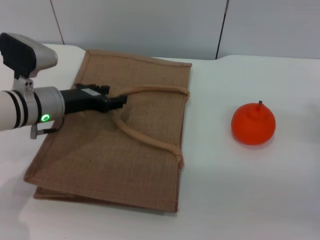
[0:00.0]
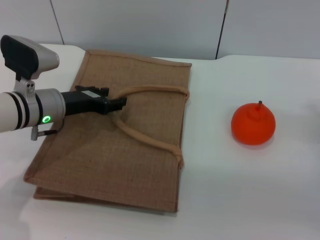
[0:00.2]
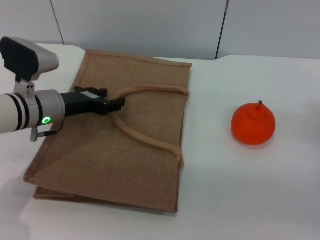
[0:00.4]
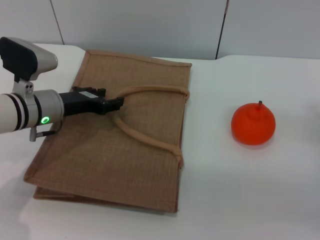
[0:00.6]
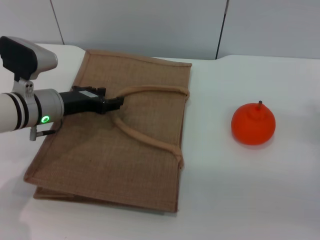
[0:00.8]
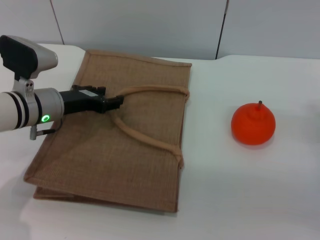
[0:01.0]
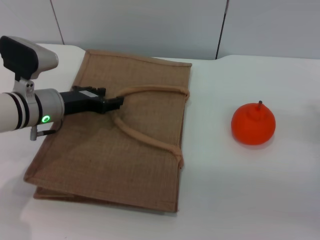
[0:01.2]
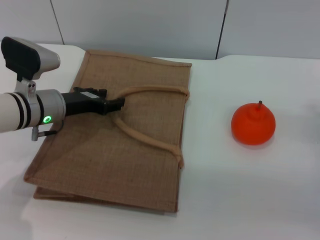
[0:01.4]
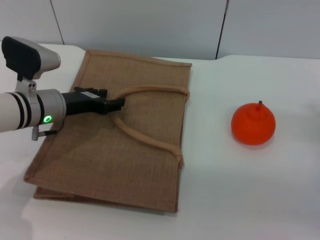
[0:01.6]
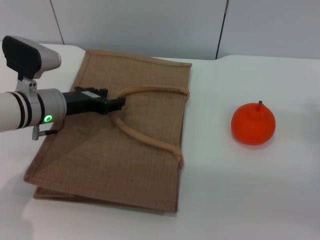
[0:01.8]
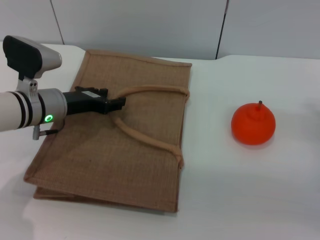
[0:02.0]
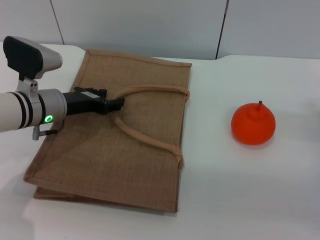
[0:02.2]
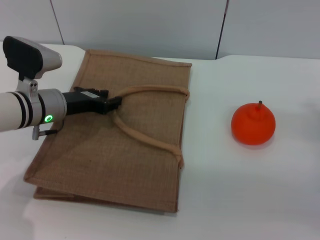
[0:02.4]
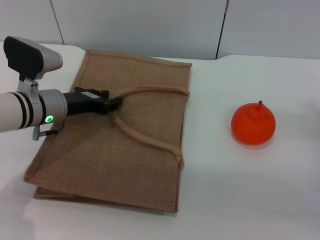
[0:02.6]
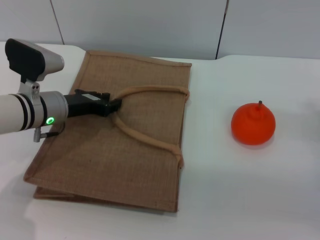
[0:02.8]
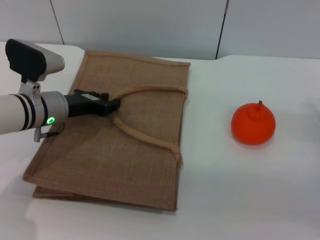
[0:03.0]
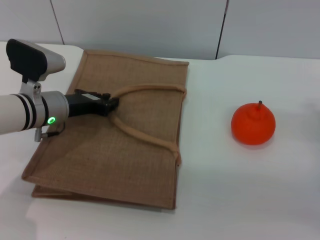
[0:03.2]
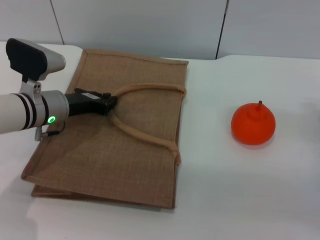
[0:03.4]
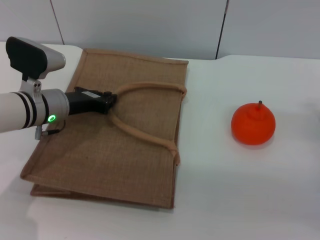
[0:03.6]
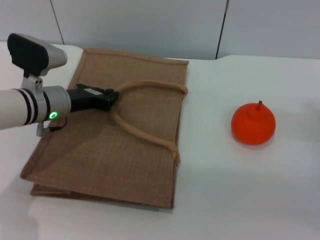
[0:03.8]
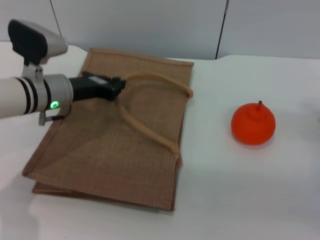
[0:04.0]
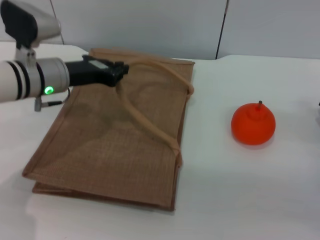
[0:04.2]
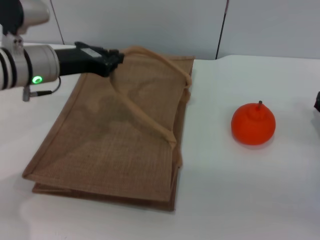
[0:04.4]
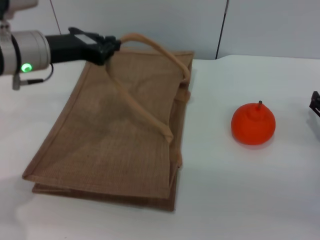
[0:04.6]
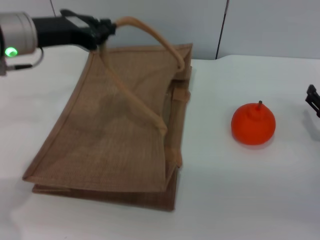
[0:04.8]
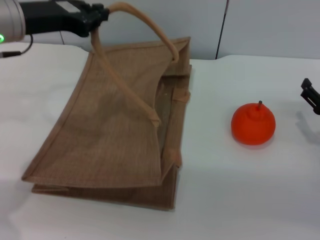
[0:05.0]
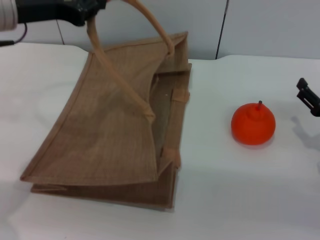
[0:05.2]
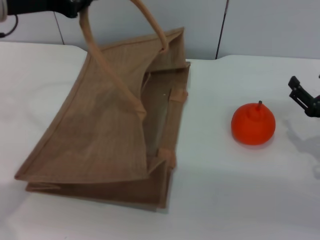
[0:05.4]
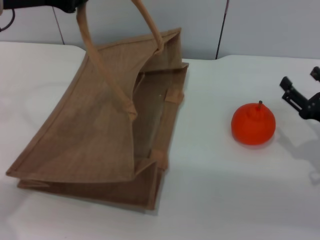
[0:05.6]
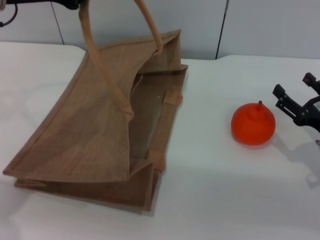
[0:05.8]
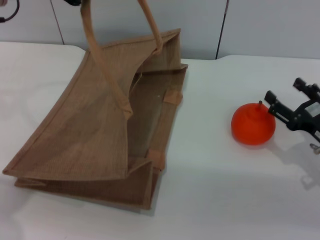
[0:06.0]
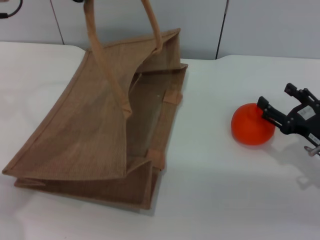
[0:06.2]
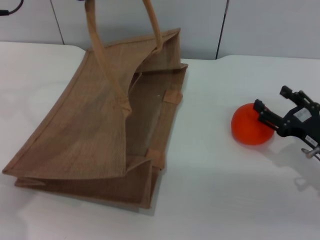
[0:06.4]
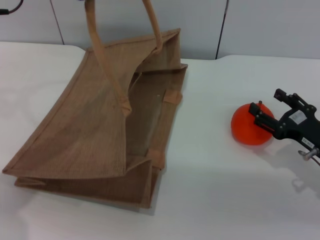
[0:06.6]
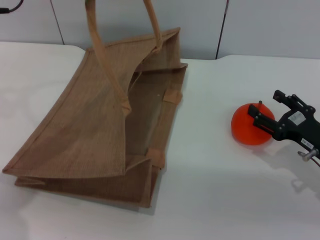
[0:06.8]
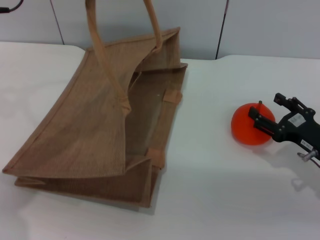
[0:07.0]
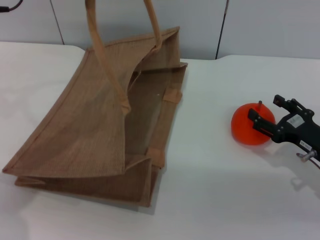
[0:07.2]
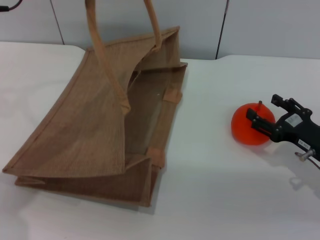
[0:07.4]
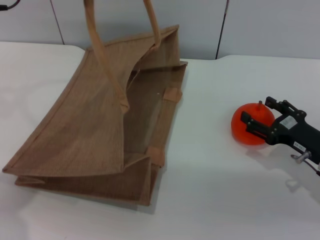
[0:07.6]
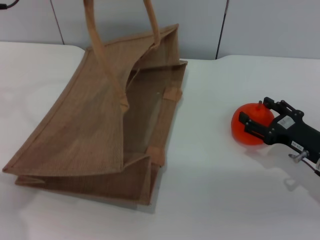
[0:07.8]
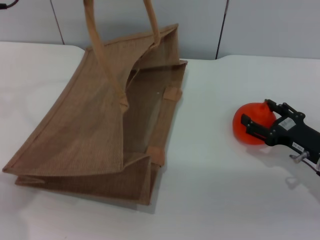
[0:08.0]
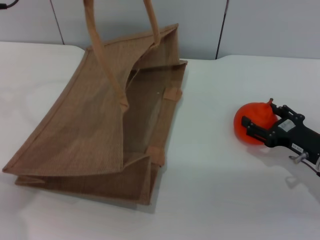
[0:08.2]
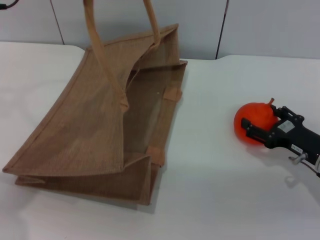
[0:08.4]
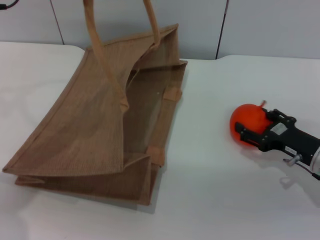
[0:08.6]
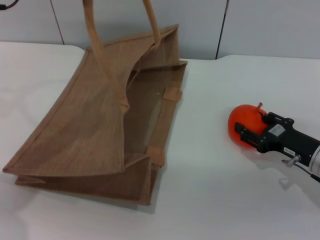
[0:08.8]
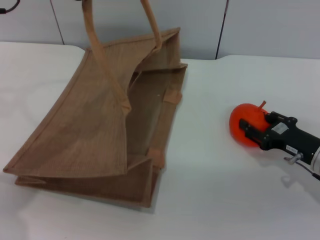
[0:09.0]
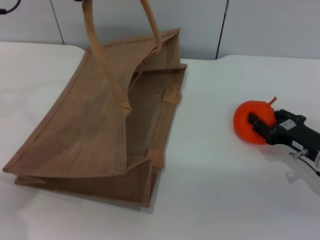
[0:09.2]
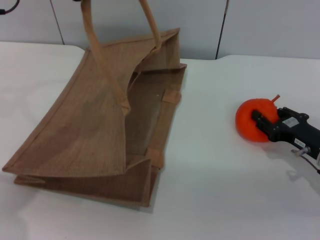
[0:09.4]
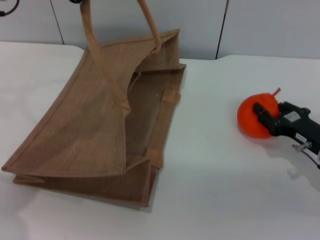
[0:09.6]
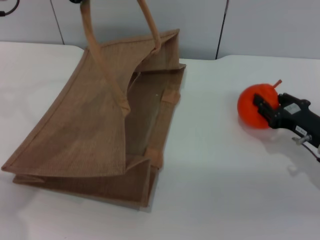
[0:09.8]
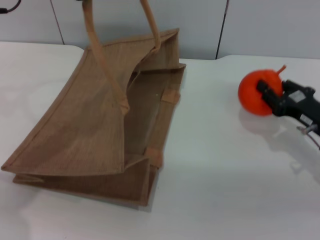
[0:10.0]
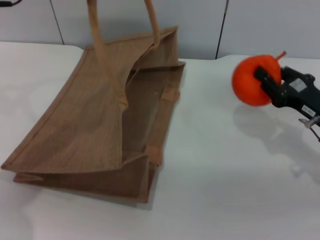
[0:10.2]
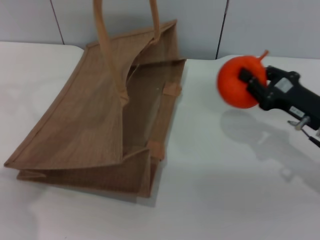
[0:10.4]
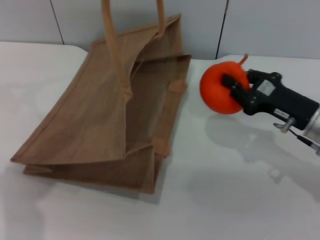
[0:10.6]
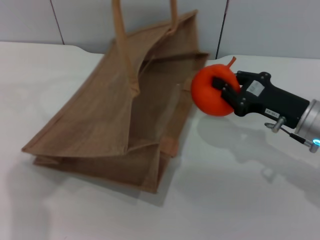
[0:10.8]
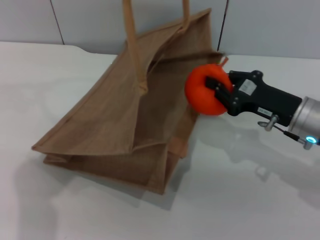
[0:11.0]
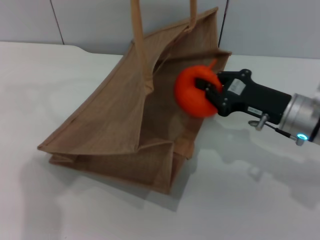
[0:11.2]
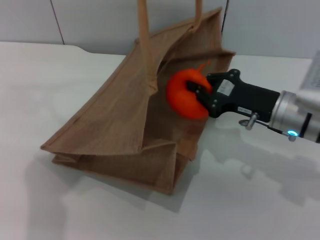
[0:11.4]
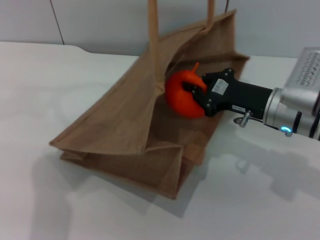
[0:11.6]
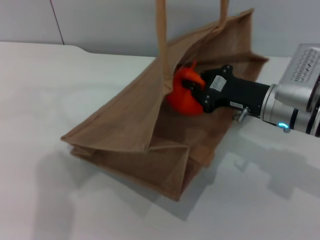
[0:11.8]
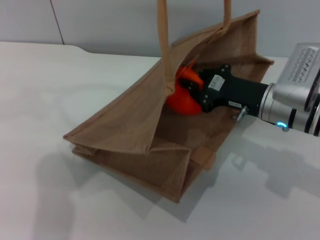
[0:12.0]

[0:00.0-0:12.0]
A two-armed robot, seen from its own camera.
Task of the whole recording: pick up the orange from the table and place it in the brown handbag.
Step, 0.0 to 5.0 s: Lift the woven bag with the left gripper to open it.
Step, 5.2 to 10.2 s: Pick up the orange with the right gripper.
0.0 to 1.6 s: The two grippers keep their place.
1.6 to 3.0 s: The two grippers keep their place.
3.0 to 4.4 s: The left gripper moves upward, approximately 10 cm, and closes up.
4.4 to 6.0 s: The left gripper travels upward by approximately 15 cm.
6.0 to 7.6 s: The grippers make only small movements.
7.6 to 9.0 s: The grippers move only a little.
9.0 to 10.4 s: The right gripper moves upward, roughly 5 cm, and closes.
10.4 to 12.0 s: The left gripper heads to the right, covering about 10 cm; the right gripper shifts approximately 10 cm to the left.

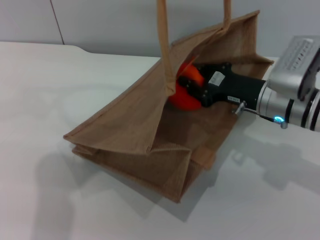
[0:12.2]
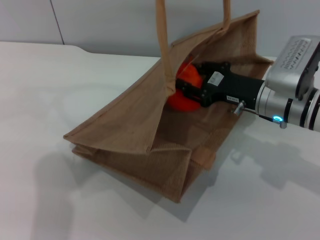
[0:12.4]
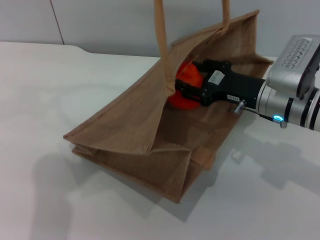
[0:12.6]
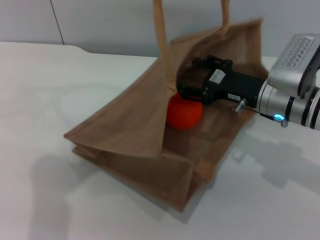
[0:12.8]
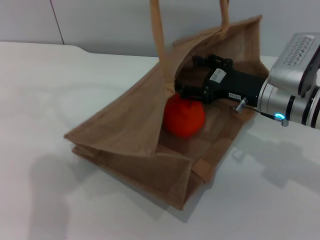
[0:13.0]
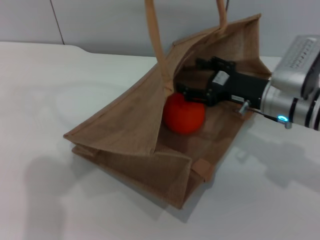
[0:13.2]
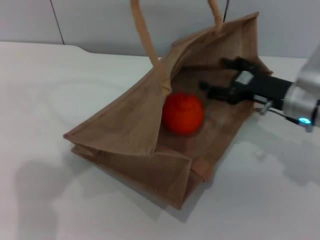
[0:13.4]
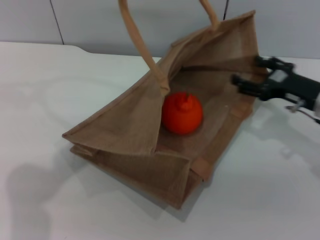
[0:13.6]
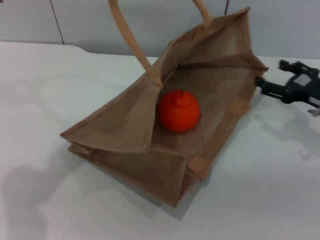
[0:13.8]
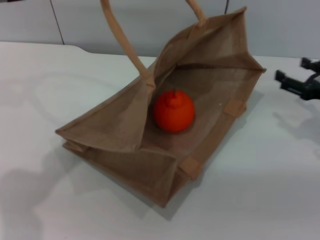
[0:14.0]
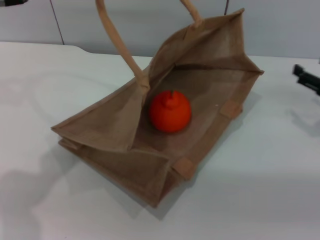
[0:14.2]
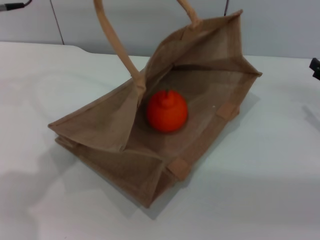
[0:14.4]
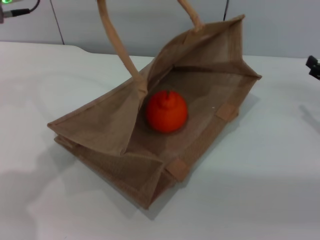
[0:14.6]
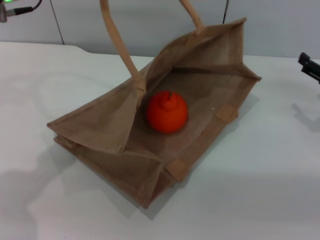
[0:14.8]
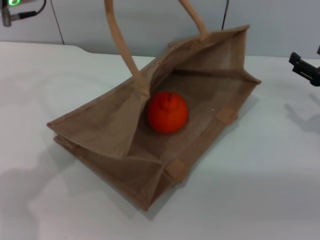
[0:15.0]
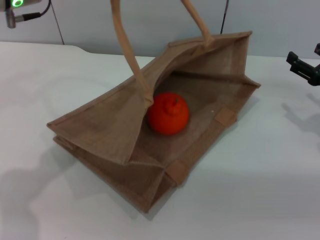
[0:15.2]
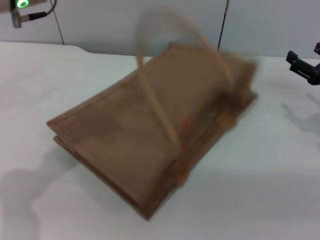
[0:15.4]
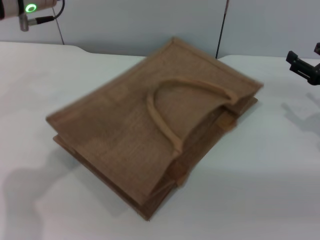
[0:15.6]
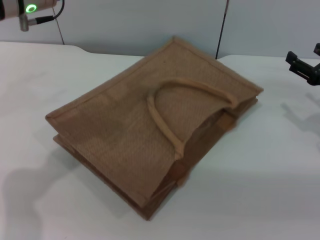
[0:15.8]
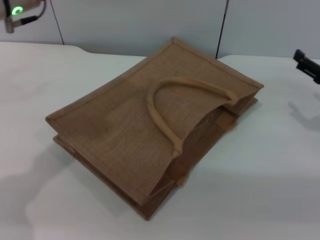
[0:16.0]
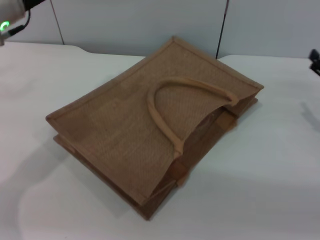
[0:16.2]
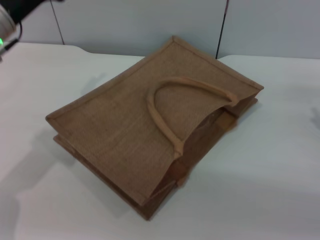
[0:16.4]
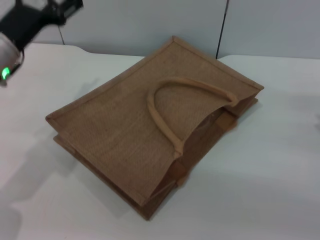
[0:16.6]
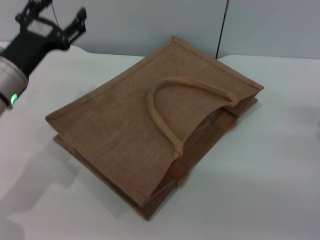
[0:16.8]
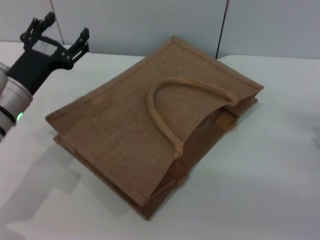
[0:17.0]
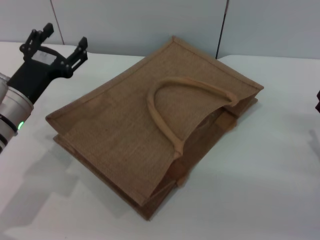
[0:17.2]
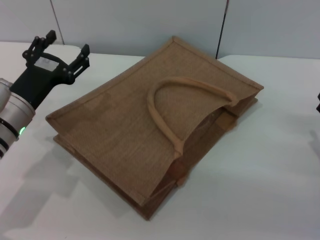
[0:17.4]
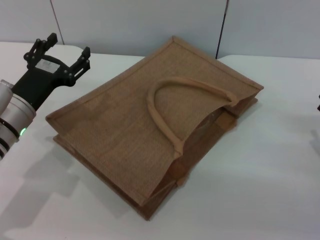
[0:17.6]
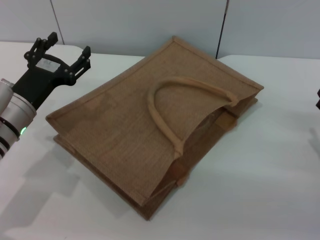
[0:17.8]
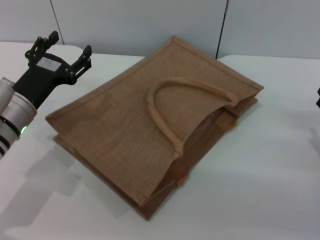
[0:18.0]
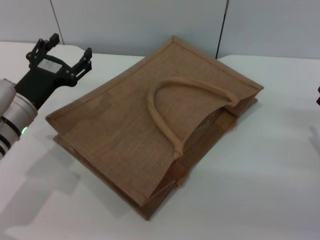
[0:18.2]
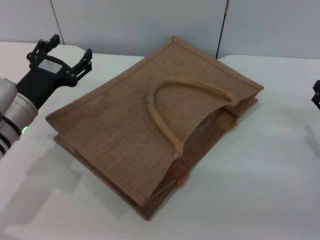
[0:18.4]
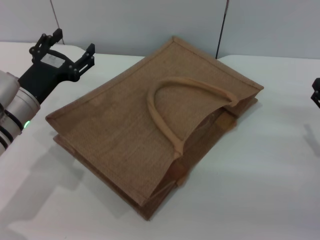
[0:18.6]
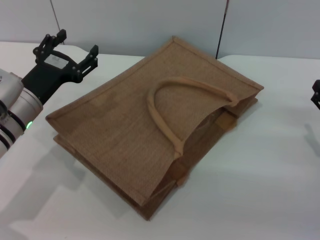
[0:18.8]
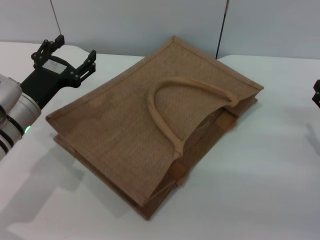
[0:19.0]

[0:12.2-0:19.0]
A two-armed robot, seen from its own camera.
Task of the whole recording: pick up the orange from the table and place it in the brown handbag.
Step, 13.8 to 15.6 s: Lower the woven bag with the left gripper to close it.
12.2 to 13.6 s: The left gripper changes place by approximately 5 cm. The right gripper travels to the right by roughly 10 cm, and opens up.
13.6 to 15.0 s: The left gripper moves roughly 5 cm, while the right gripper moves to the right, approximately 5 cm.
15.0 to 16.2 s: The left gripper moves about 5 cm, and opens.
16.2 to 17.6 s: The right gripper goes roughly 10 cm backward. Meanwhile the left gripper shifts approximately 15 cm downward and backward.
17.6 to 19.0 s: The grippers move only a little.

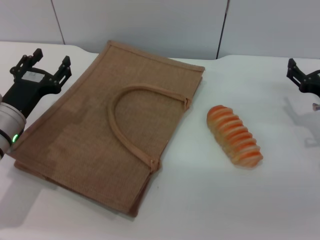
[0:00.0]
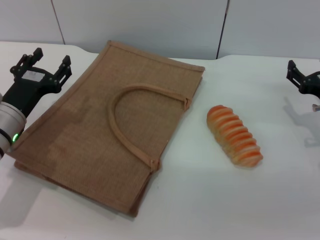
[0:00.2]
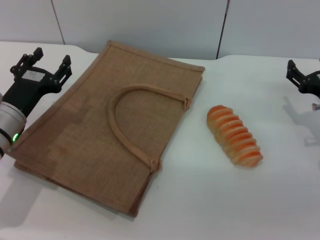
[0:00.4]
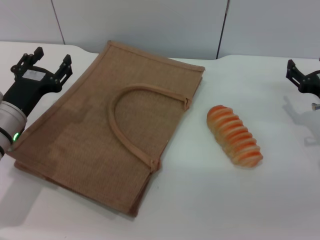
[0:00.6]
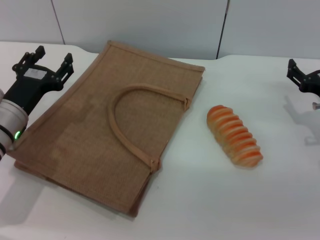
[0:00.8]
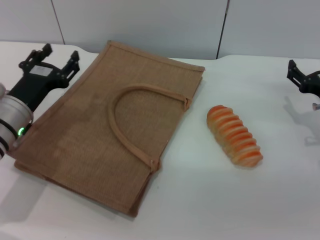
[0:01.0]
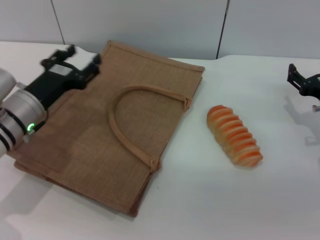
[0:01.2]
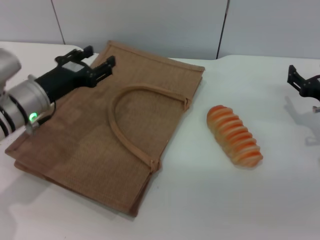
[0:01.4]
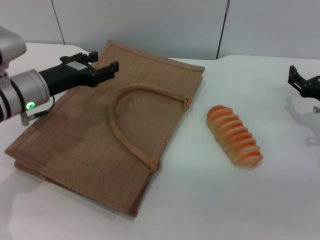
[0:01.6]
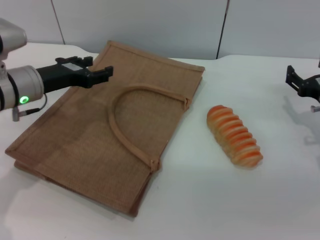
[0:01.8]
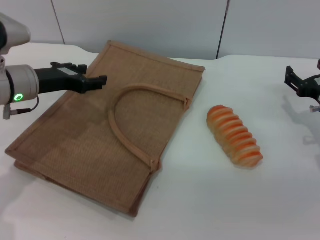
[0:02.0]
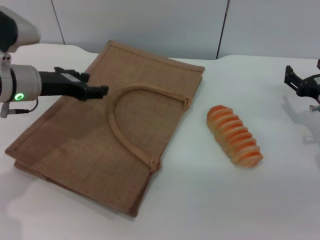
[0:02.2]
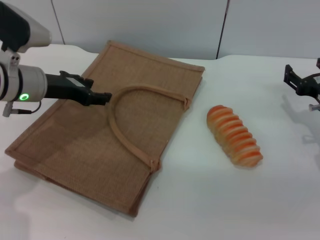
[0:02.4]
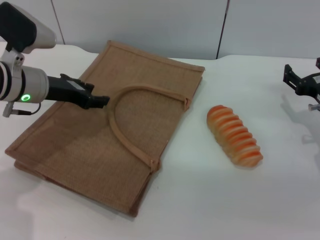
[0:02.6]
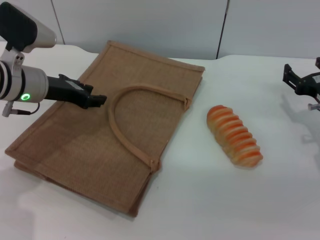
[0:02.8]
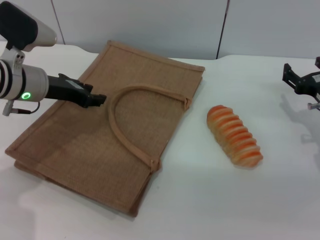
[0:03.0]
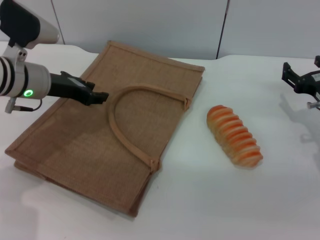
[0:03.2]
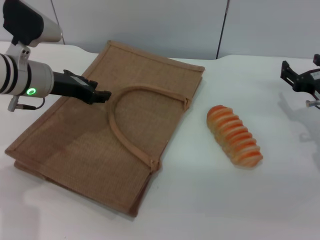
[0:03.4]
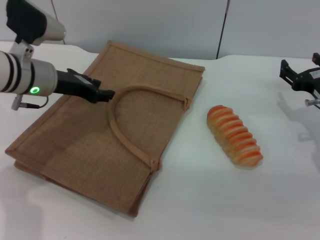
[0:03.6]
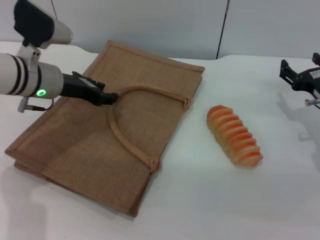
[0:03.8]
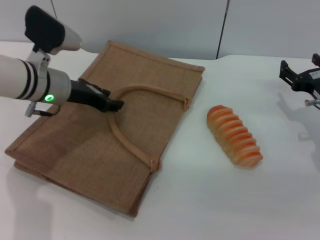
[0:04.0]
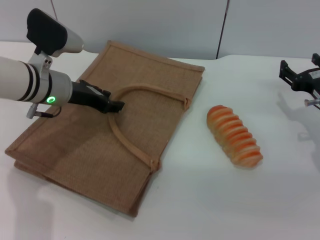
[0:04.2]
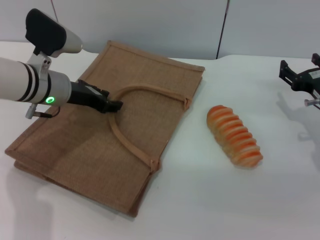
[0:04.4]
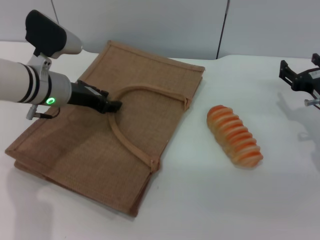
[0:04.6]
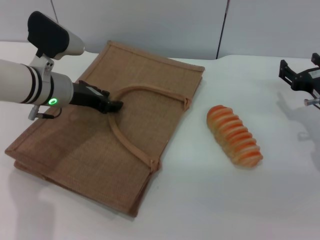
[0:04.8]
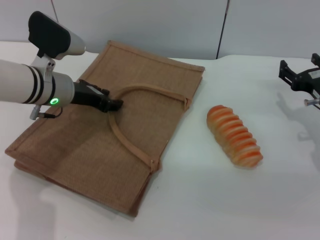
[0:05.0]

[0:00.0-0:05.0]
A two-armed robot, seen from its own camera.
Task of the whole recording: pick up the bread from the table and place it in the brown handbag.
0.0 to 1.6 s: The left gripper moves roughly 5 cm.
3.4 to 5.0 s: The grippers stay close to where they were, moving slightly.
